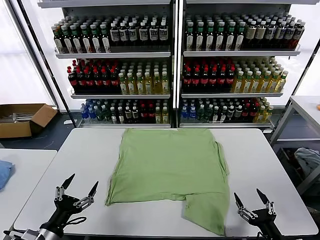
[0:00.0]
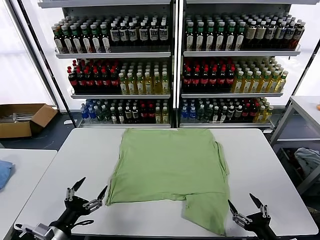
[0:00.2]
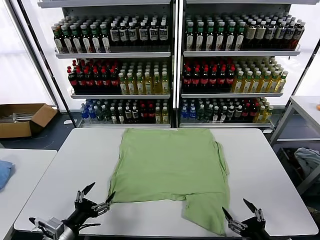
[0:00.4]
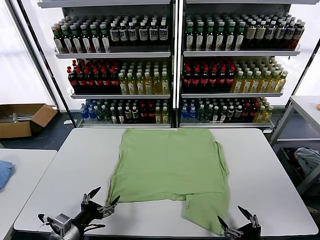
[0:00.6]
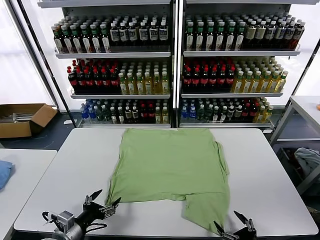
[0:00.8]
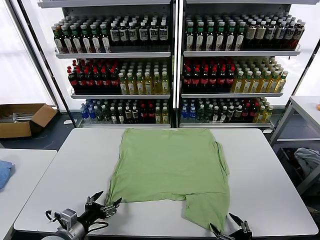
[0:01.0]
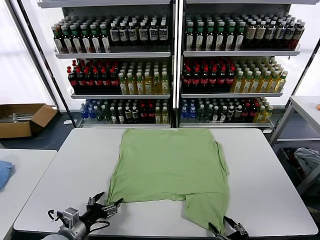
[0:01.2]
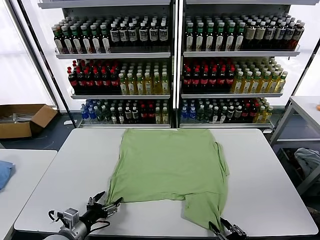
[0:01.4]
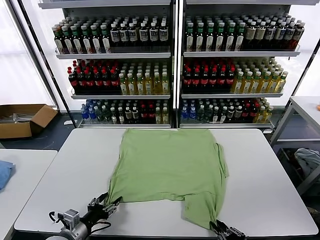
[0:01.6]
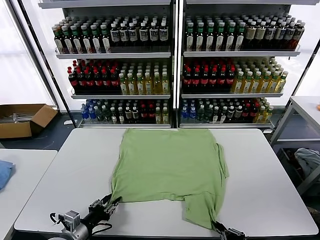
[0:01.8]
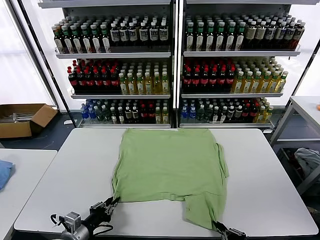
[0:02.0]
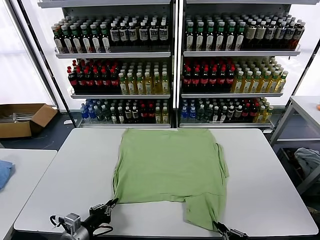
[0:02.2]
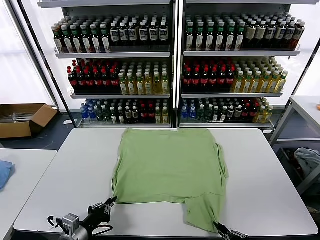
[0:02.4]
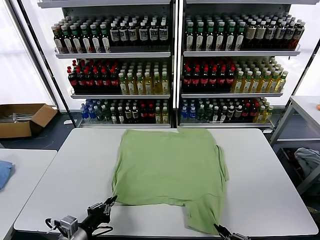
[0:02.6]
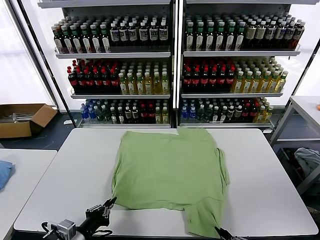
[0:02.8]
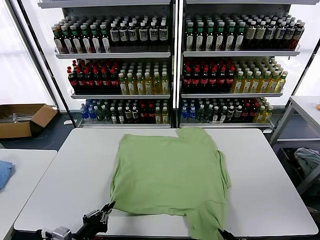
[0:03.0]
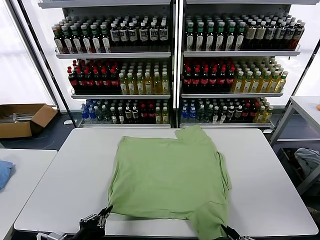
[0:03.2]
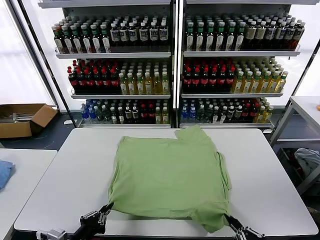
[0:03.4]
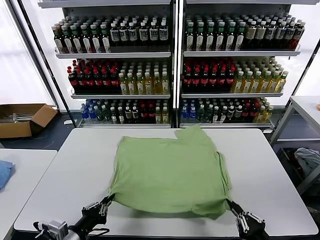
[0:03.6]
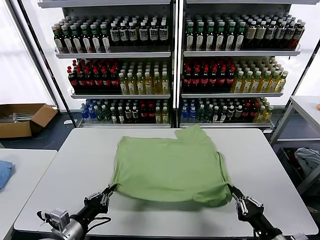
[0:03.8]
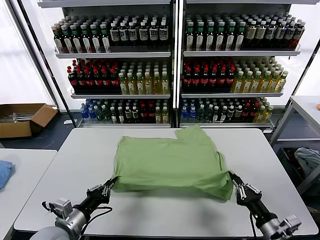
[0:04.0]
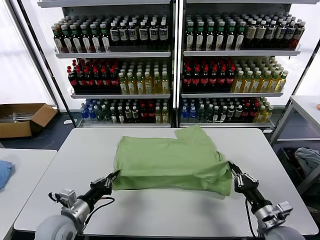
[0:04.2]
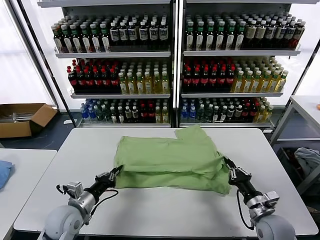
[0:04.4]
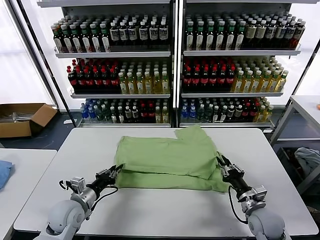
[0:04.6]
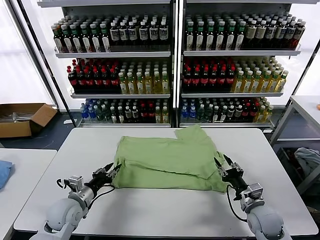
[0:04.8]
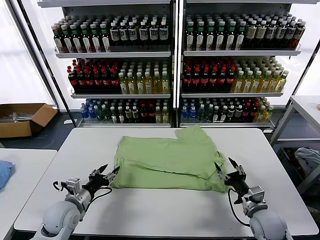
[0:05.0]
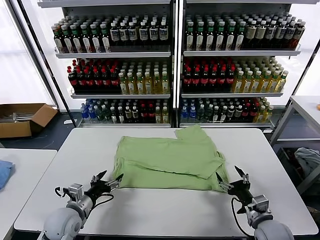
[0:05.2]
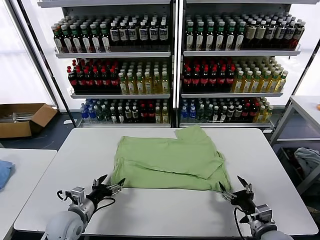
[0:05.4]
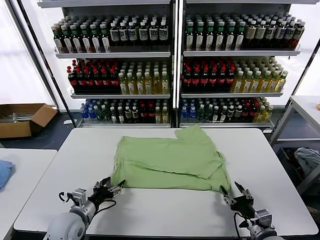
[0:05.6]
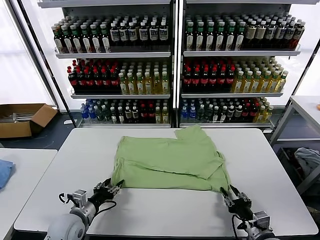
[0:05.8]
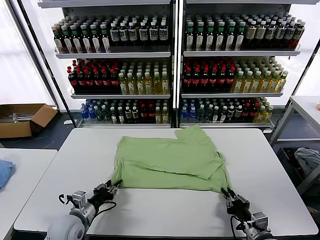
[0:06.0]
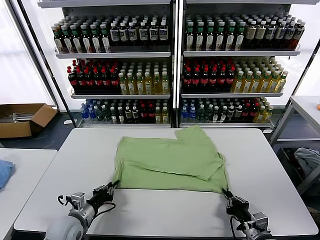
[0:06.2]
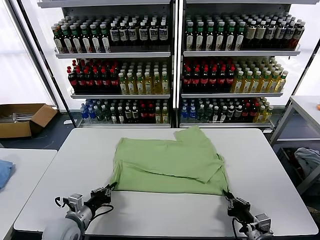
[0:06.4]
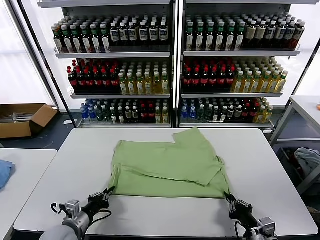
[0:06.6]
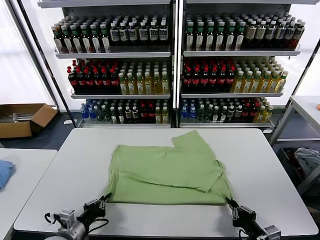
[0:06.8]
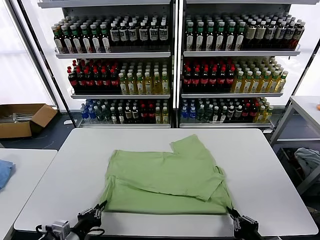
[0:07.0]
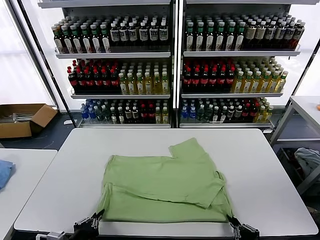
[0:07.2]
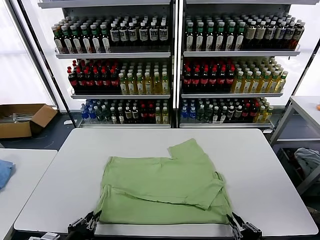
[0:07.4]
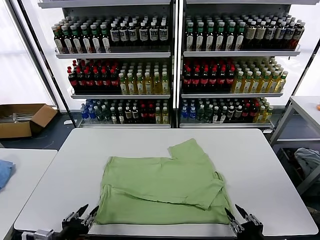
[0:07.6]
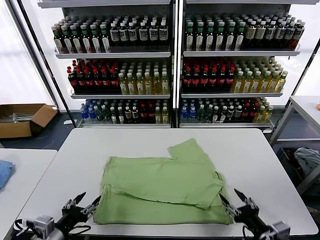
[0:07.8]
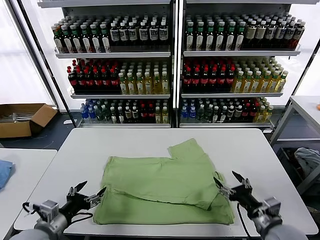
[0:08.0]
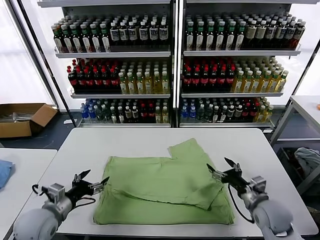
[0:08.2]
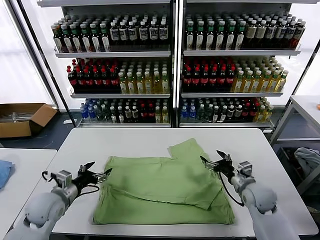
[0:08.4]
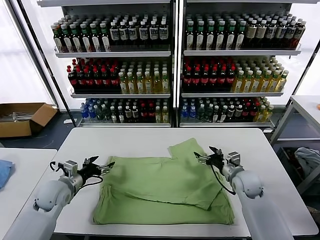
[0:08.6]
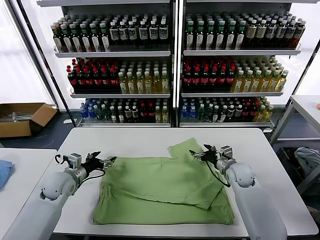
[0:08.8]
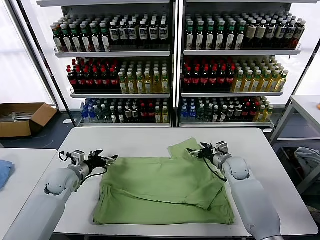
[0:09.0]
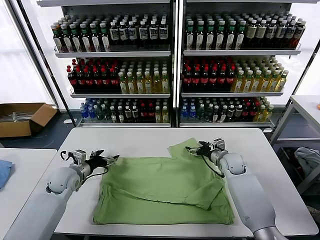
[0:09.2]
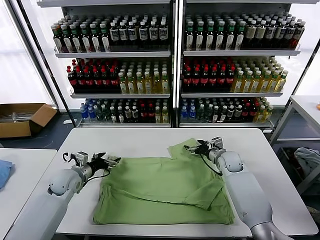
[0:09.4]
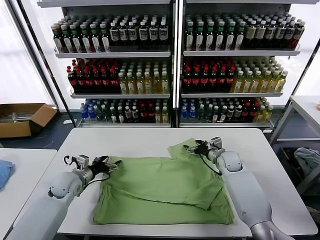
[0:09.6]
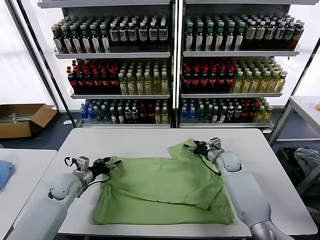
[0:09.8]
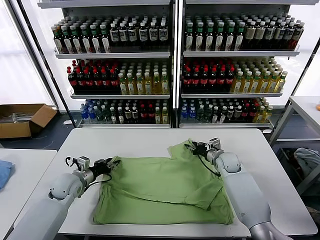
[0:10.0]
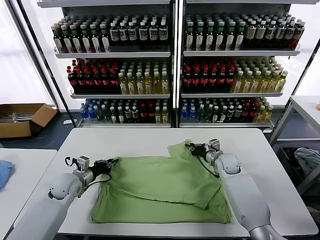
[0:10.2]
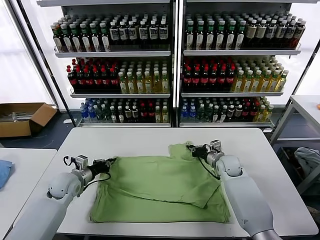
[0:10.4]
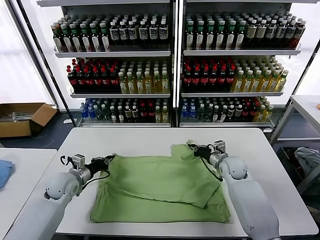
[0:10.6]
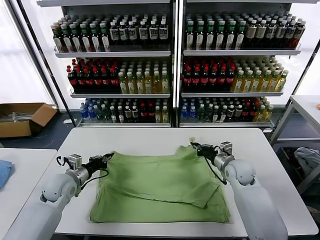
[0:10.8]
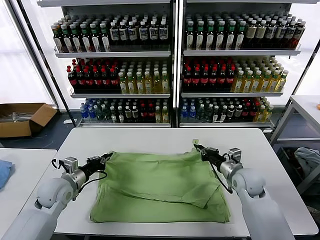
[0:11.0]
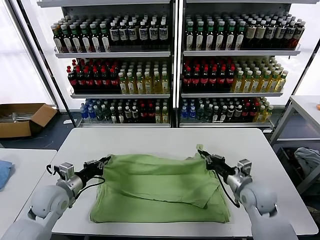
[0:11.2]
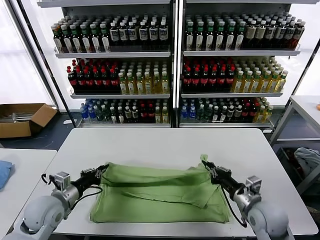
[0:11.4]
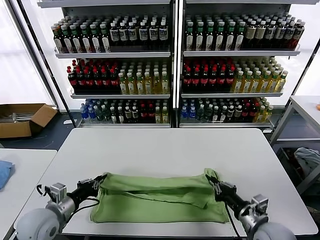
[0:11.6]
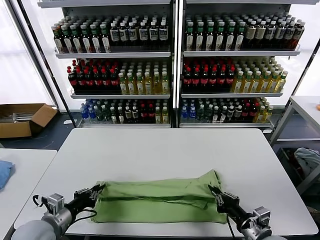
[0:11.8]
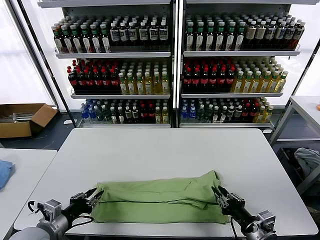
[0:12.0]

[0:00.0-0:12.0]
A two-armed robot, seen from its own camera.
Task of the whole recording: fold and organize the clothes.
Step, 0:00.0 to 0:02.0: use both grippers simultaneously to clamp the lower edge of the clothing fabric.
Step, 0:02.4 to 0:04.8: use both grippers to drag the lower edge of the fabric forward and fold it over the upper edge.
Step, 0:05.2 to 0:07.4: Drag the clothes downward with both gripper.
Step, 0:07.6 to 0:10.2: use both grippers simultaneously to clamp the upper edge of the clothing fabric.
0:01.6 to 0:03.0: The right gripper is displaced backward by roughly 5 cm; the left gripper goes some 10 cm backward and upward, and closes up.
0:03.0 to 0:04.4: Both grippers travel together forward, about 20 cm.
0:04.4 to 0:06.0: The left gripper opens, then closes once more, while the right gripper heads backward, covering about 10 cm, and opens and closes again.
0:06.0 to 0:07.6: The left gripper goes some 15 cm backward and upward. Meanwhile the right gripper is displaced backward and upward by some 10 cm, and opens.
0:07.6 to 0:09.0: Both grippers move forward, approximately 35 cm. The left gripper opens up, while the right gripper opens.
0:09.0 to 0:10.4: The right gripper closes. Meanwhile the left gripper closes its fingers.
0:10.4 to 0:12.0: The left gripper shifts about 20 cm backward; the right gripper heads backward, covering approximately 30 cm.

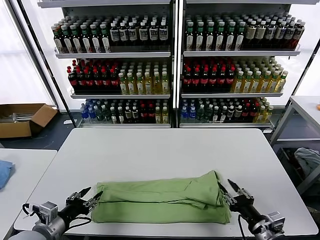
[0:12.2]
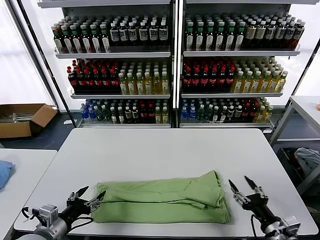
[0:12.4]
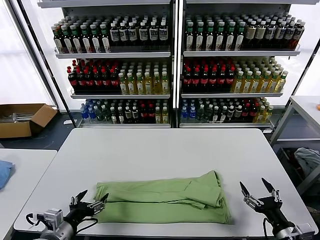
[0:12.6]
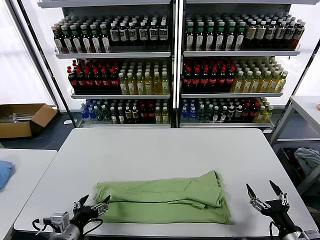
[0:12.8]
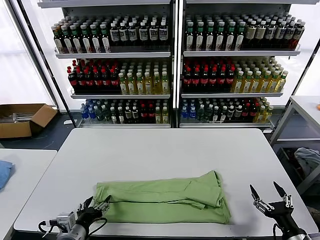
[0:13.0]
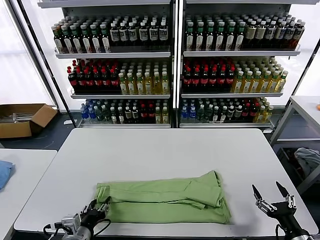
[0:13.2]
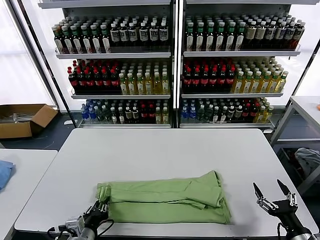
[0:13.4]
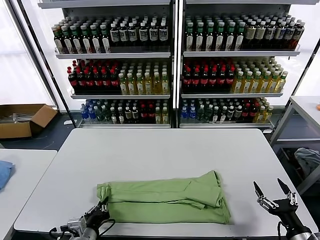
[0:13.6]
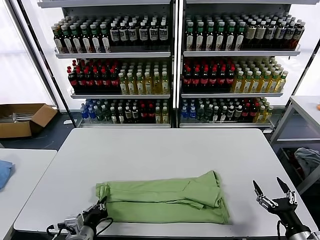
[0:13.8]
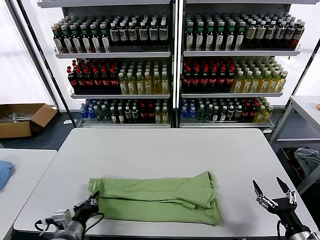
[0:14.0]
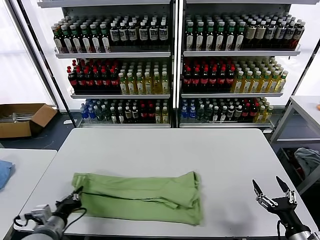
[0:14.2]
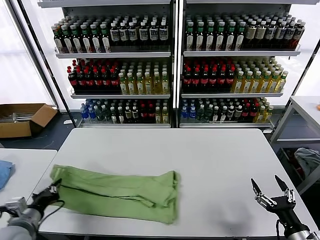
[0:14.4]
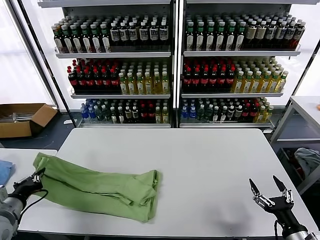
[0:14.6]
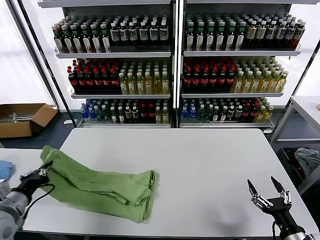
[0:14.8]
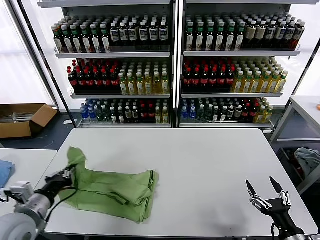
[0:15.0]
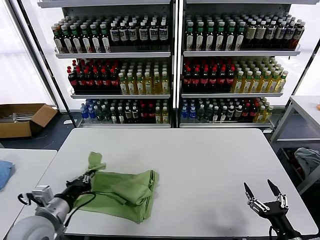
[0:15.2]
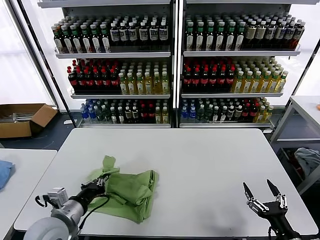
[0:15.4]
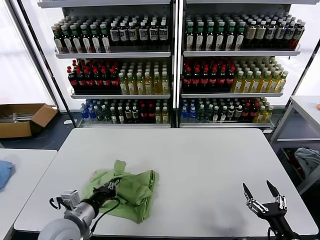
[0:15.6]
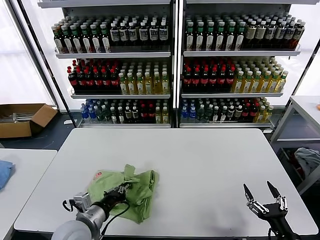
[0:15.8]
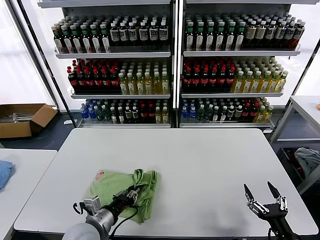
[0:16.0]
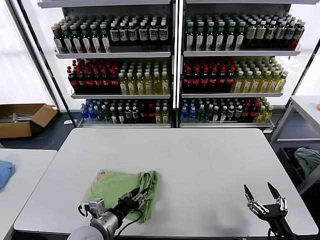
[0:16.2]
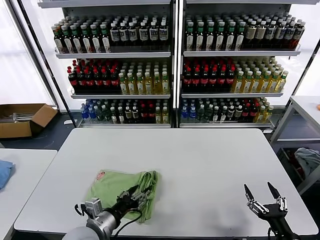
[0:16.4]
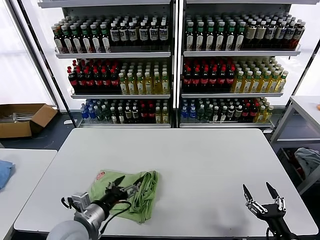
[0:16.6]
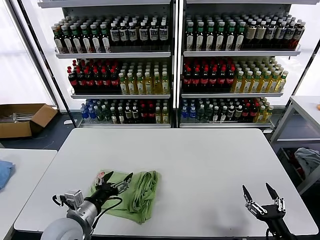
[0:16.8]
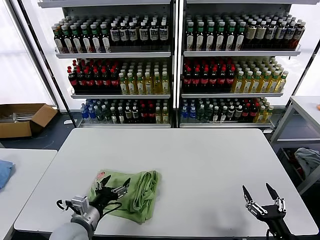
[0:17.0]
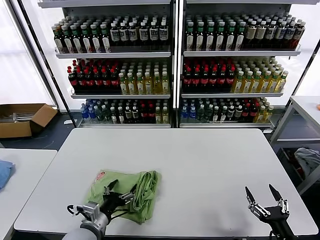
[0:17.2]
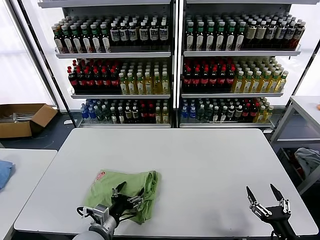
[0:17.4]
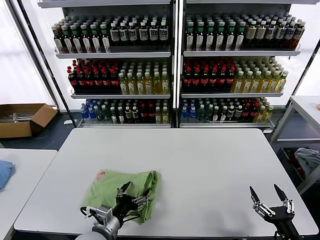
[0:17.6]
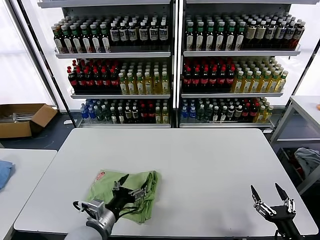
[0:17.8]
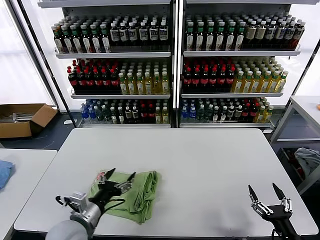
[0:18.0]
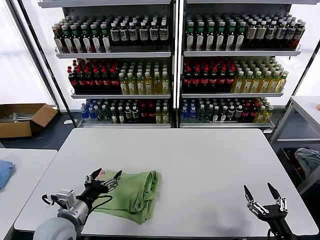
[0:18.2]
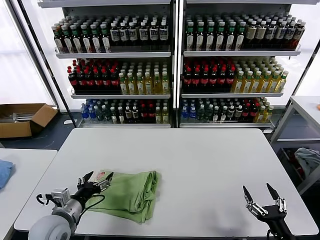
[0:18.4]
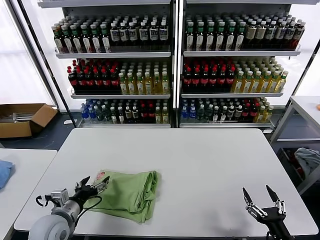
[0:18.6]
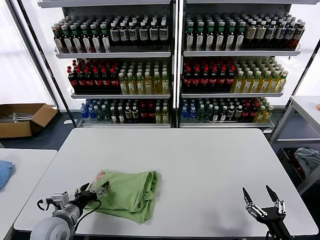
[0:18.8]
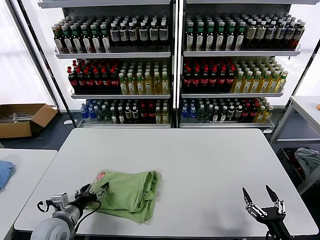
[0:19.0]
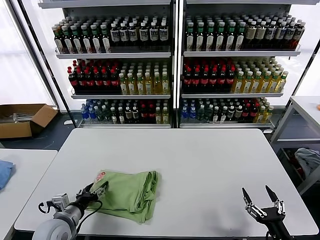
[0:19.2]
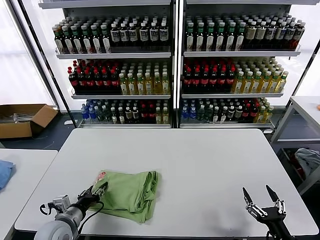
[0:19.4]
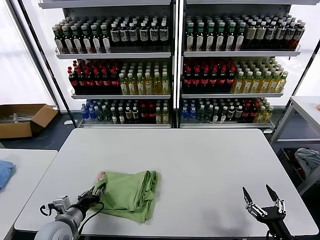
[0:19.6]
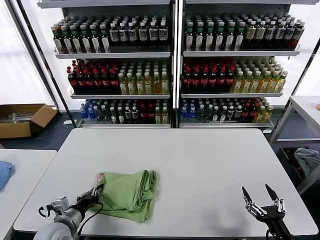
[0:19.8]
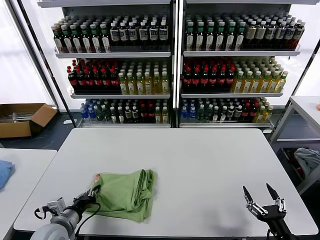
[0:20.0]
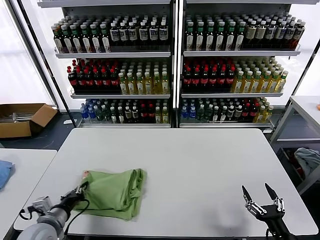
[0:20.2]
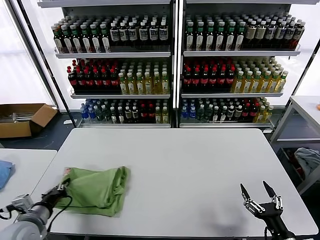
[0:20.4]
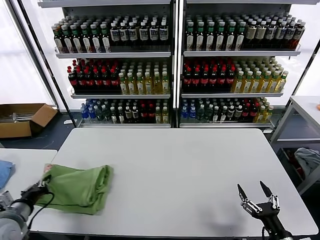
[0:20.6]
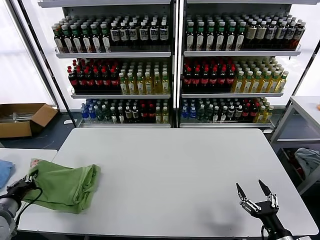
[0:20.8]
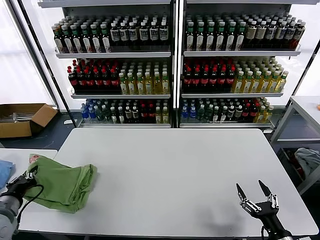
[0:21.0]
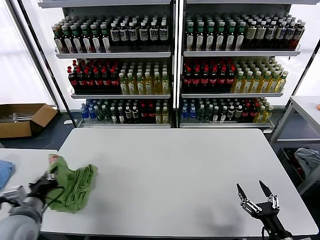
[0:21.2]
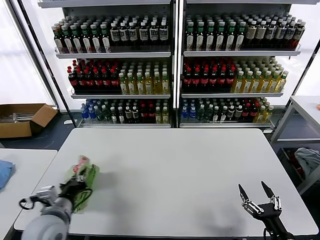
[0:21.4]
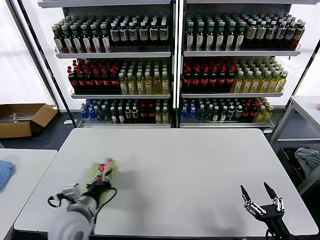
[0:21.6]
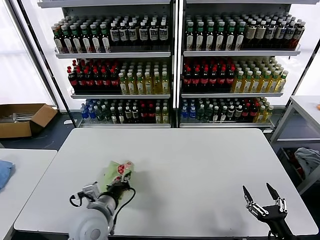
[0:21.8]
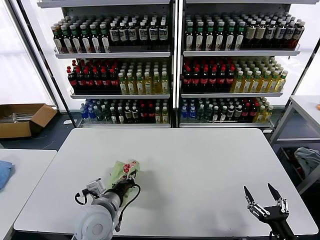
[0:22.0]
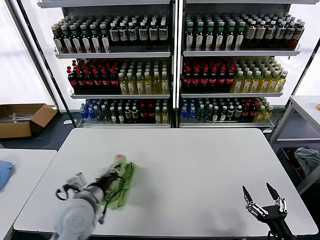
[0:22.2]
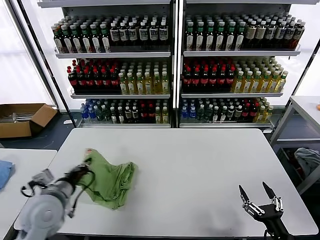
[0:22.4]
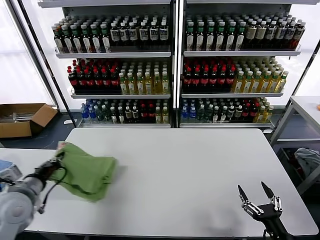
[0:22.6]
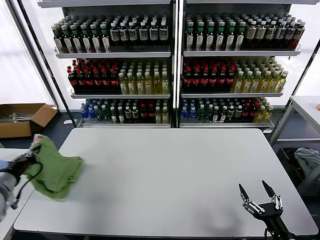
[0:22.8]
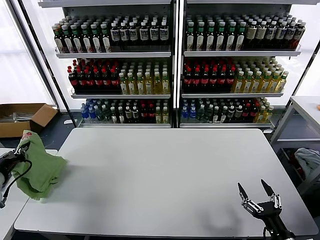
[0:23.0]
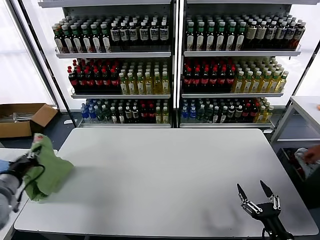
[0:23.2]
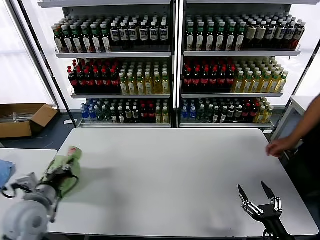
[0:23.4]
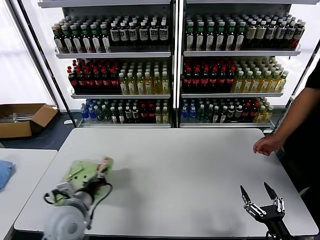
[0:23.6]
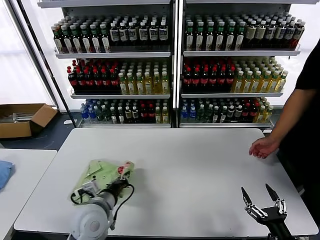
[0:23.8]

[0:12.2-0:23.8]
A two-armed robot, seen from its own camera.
Task of the whole recording: fold and organize the clothes.
Step, 0:12.2 to 0:13.6: use the left gripper to clamp the left edge of the fabric.
Step, 0:13.8 to 0:16.4: use the left gripper to drag the left edge of the fabric to the left and folds it over the right edge.
0:12.2 to 0:13.6: The left gripper heads to the right and downward, covering approximately 10 cm, and closes up. The right gripper goes roughly 5 cm to the right, and opens up.
0:13.6 to 0:15.0: The left gripper shifts roughly 15 cm to the left and upward.
0:15.0 to 0:16.6: The left gripper heads to the right, covering approximately 15 cm, and opens its fingers.
0:16.6 to 0:18.0: The left gripper moves roughly 10 cm downward and comes back.
0:18.0 to 0:19.4: The left gripper is displaced to the left and downward by about 10 cm, and closes its fingers.
0:19.4 to 0:21.0: The left gripper travels to the left and upward by some 15 cm, and closes up.
0:21.0 to 0:22.4: The left gripper goes approximately 15 cm to the right.
0:22.4 to 0:23.8: The left gripper travels to the left and back again, some 20 cm each way.
